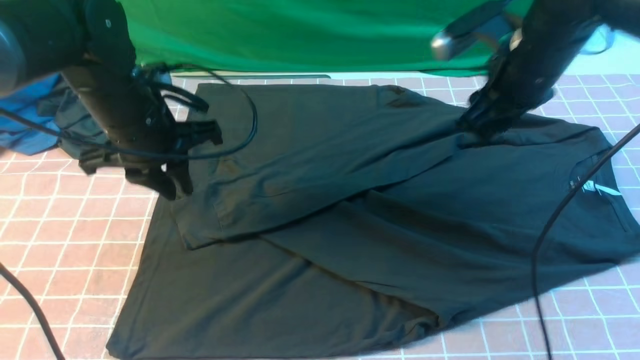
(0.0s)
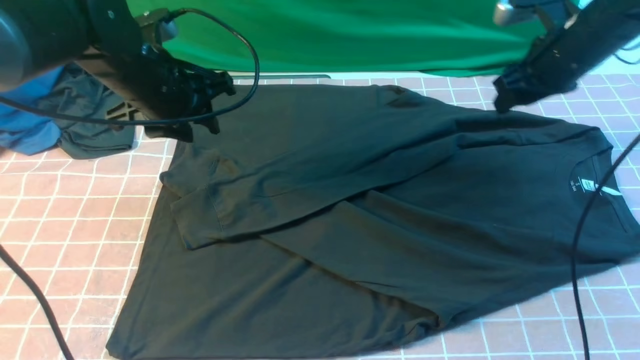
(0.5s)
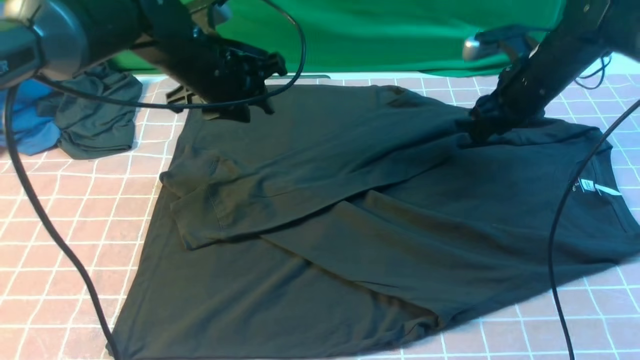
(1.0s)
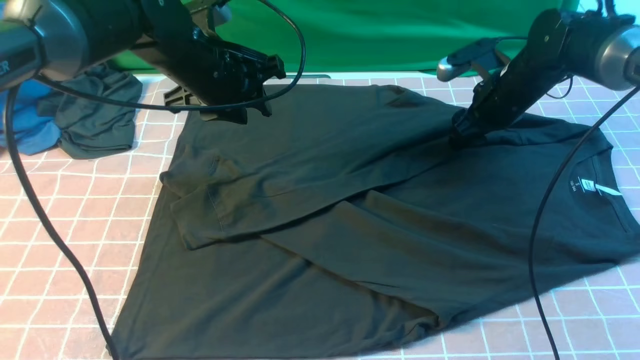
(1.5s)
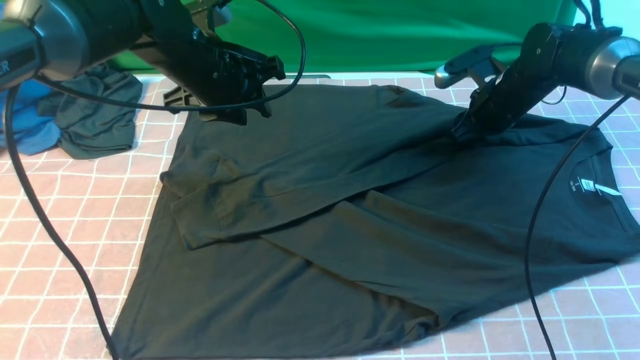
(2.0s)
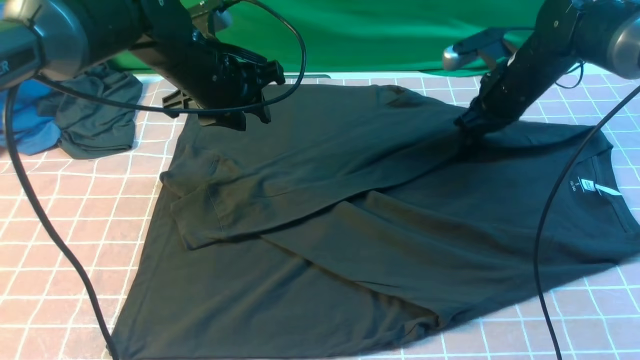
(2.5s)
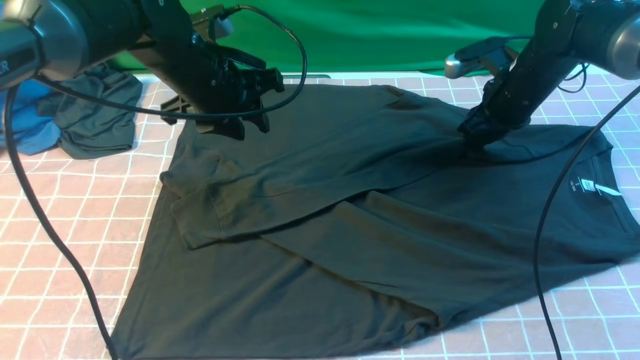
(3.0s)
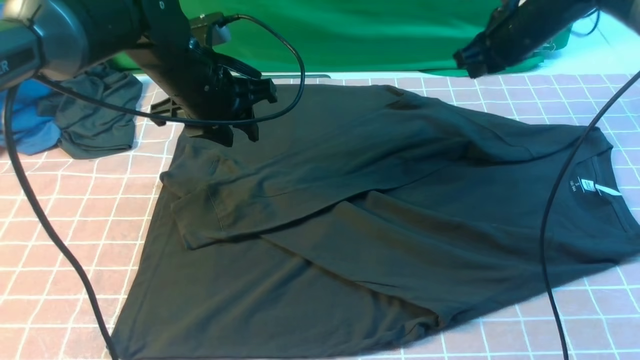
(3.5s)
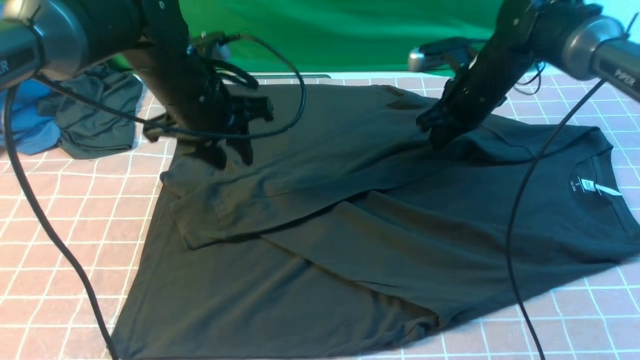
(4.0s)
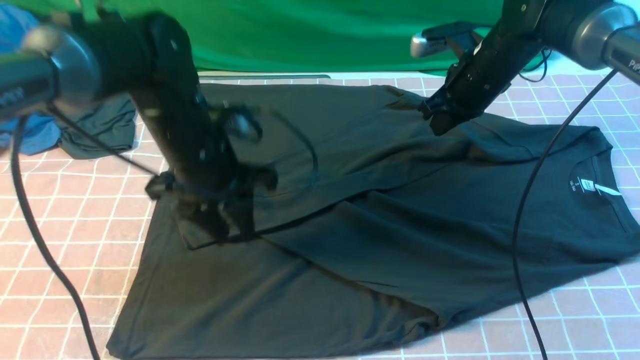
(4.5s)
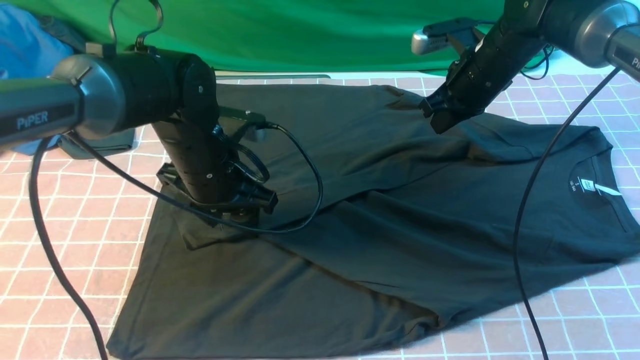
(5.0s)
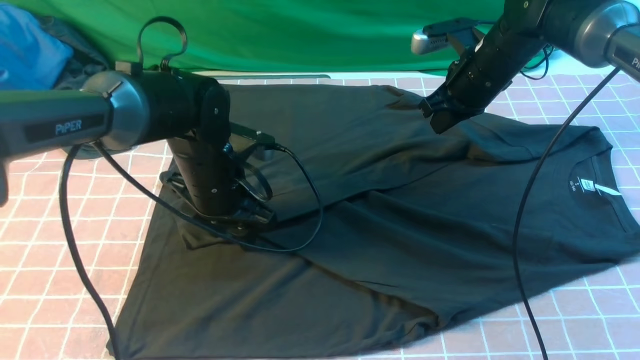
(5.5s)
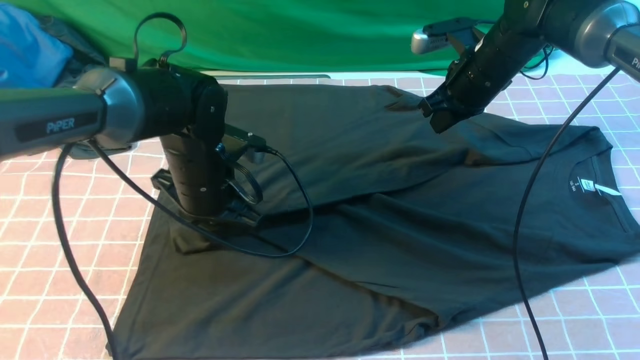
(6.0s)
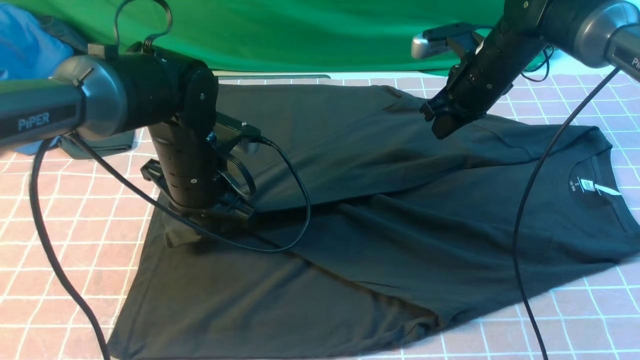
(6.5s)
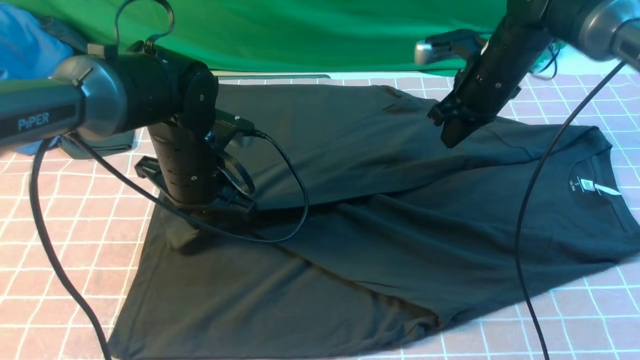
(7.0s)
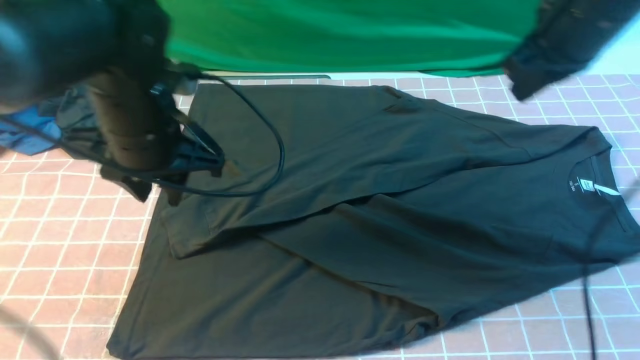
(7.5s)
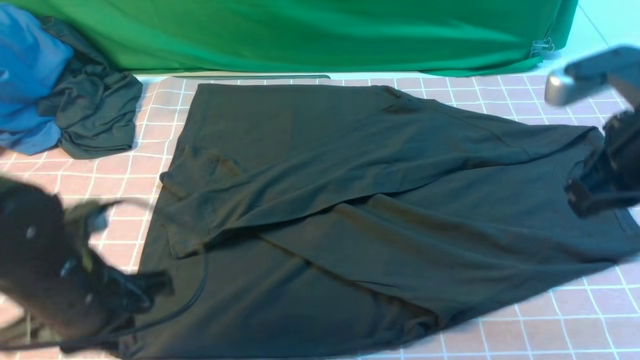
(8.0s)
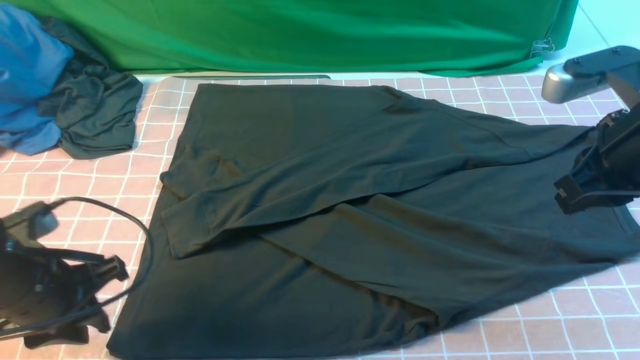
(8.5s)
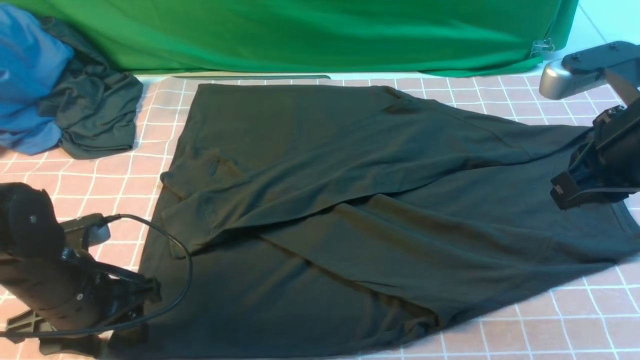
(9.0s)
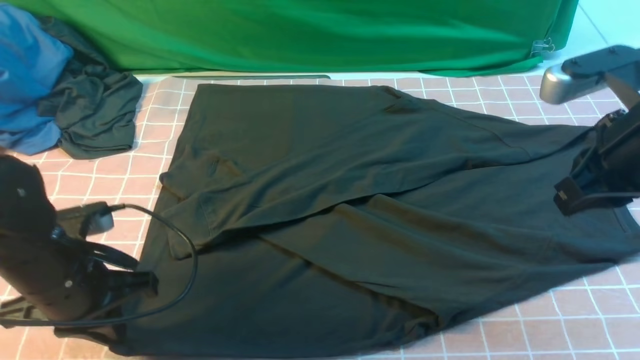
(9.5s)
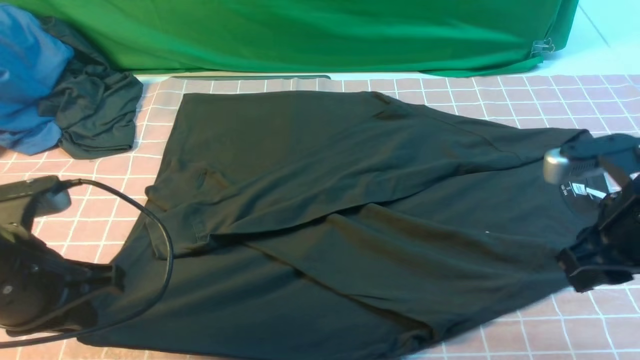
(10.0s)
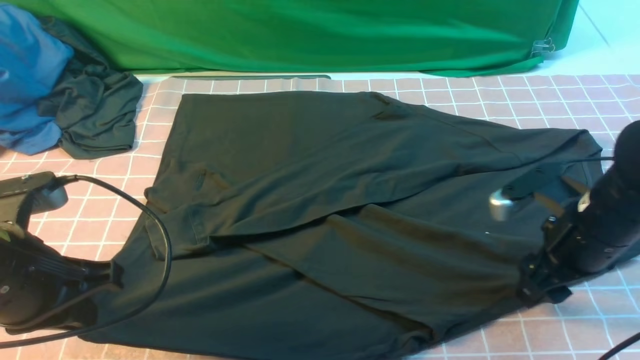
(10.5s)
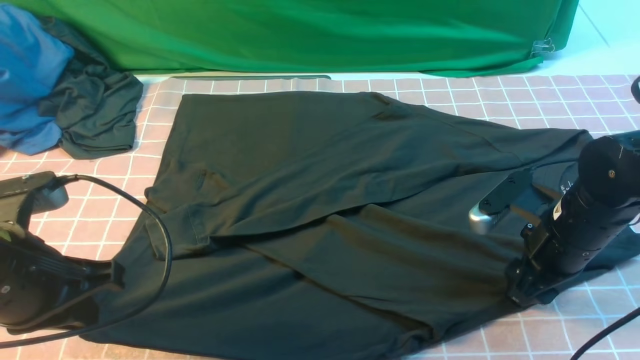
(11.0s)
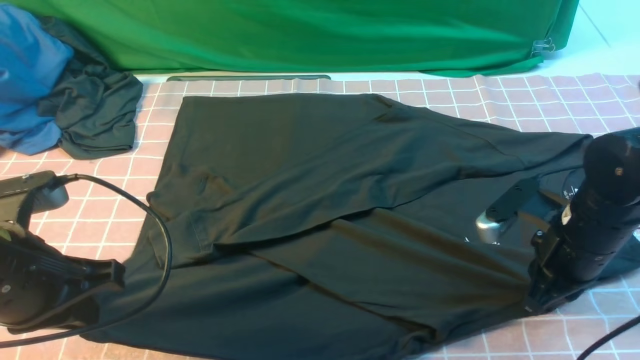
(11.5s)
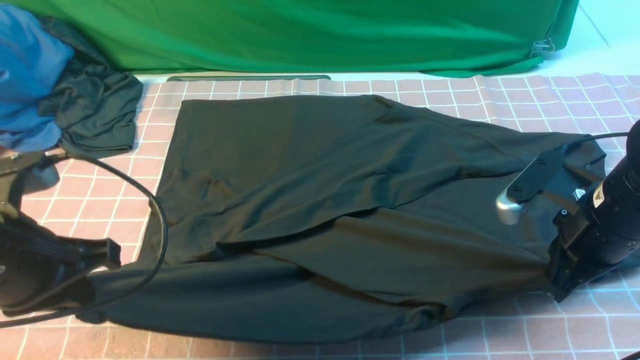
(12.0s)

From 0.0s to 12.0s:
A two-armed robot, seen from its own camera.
Step, from 0.0s to 11.5s: use both arms simultaneously to clamp the lower edge of the clothing fabric.
From 0.0s to 2.0s: The right gripper is displaced downward and forward by about 15 cm; the left gripper travels forward and to the right by about 5 cm.
From 2.0s to 4.0s: The right gripper reaches some 10 cm upward, then returns, and closes.
From 4.0s to 6.0s: The left gripper travels downward by some 5 cm, and closes.
From 6.0s to 8.0s: The left gripper moves backward and to the left, some 15 cm, while the right gripper moves backward and upward, roughly 25 cm.
From 8.0s to 10.0s: The left gripper reaches about 5 cm downward, then returns, and opens and closes again. The right gripper is displaced downward by approximately 5 cm, and opens up.
From 10.0s to 12.0s: The right gripper closes its fingers.

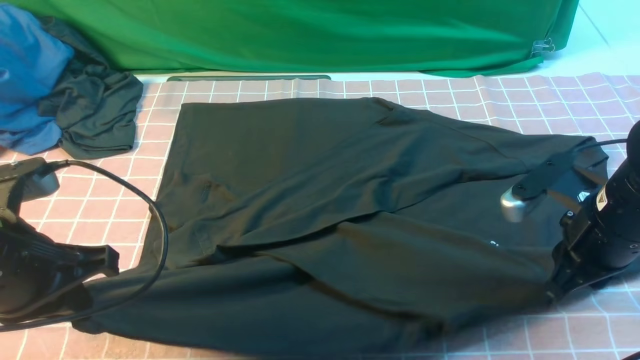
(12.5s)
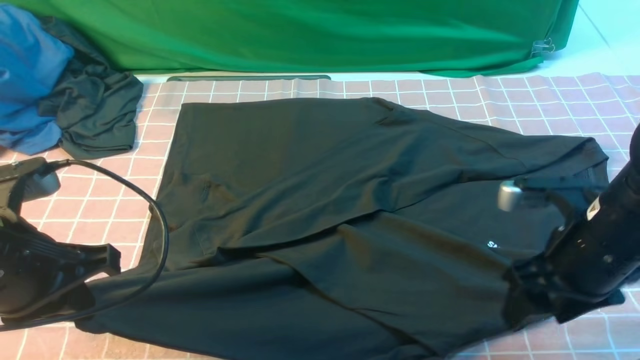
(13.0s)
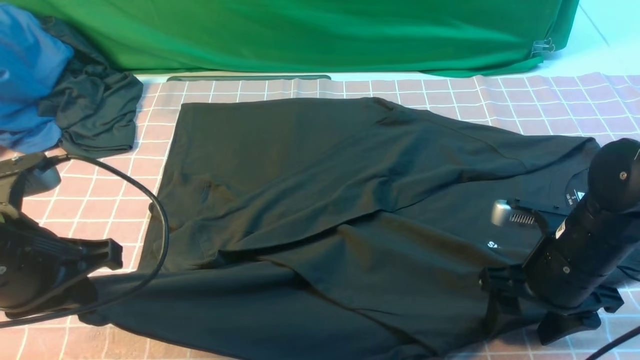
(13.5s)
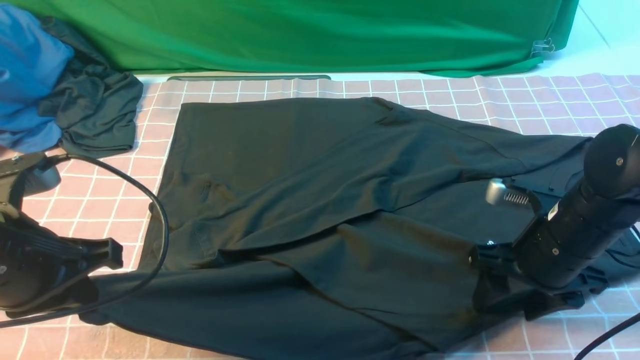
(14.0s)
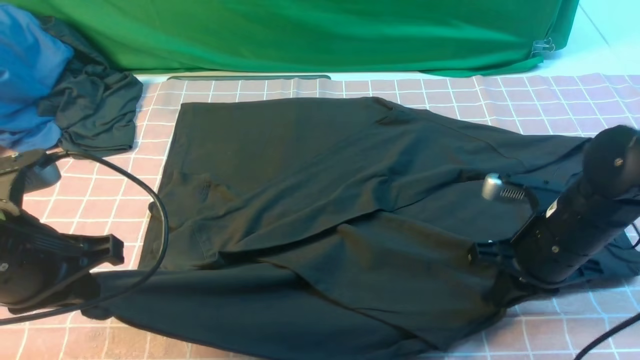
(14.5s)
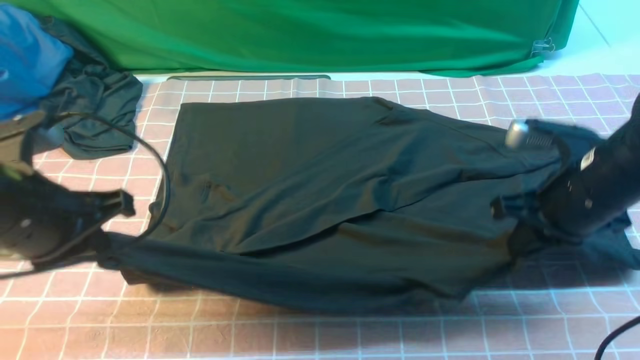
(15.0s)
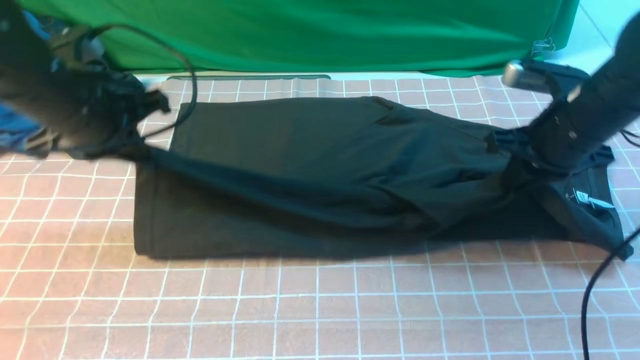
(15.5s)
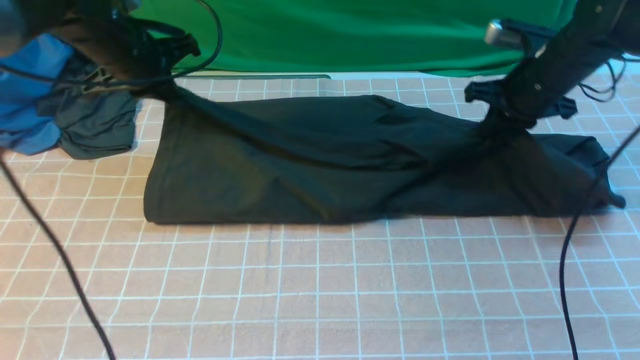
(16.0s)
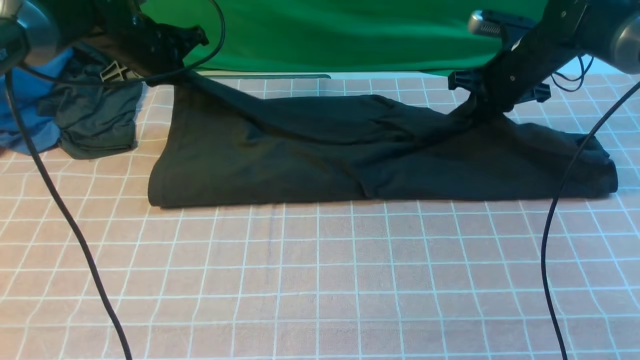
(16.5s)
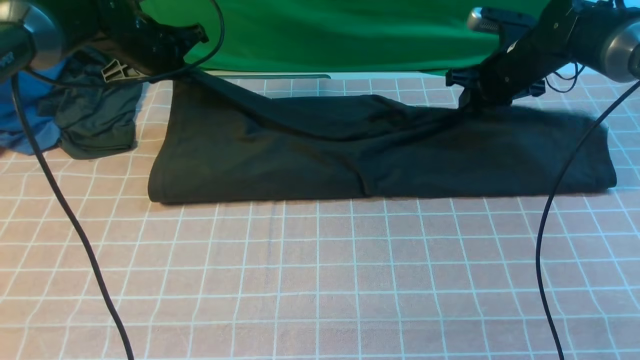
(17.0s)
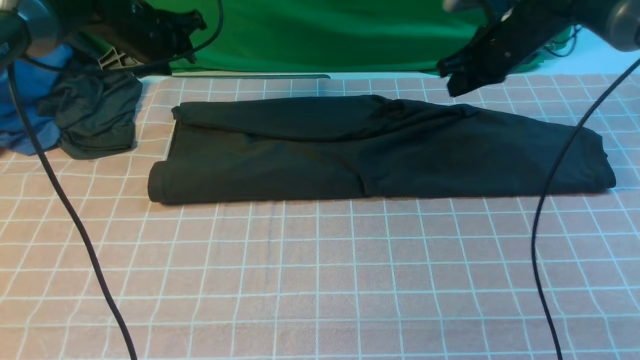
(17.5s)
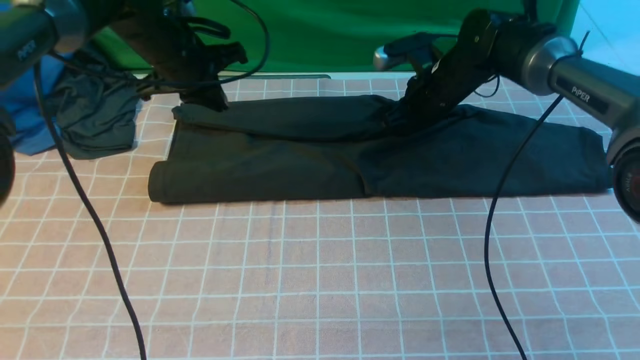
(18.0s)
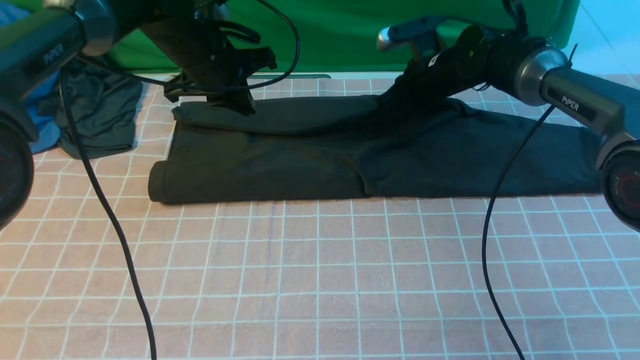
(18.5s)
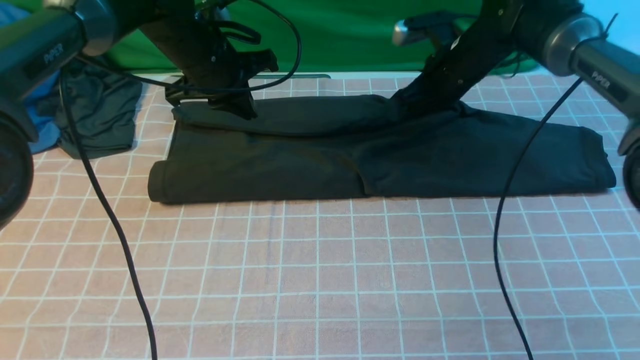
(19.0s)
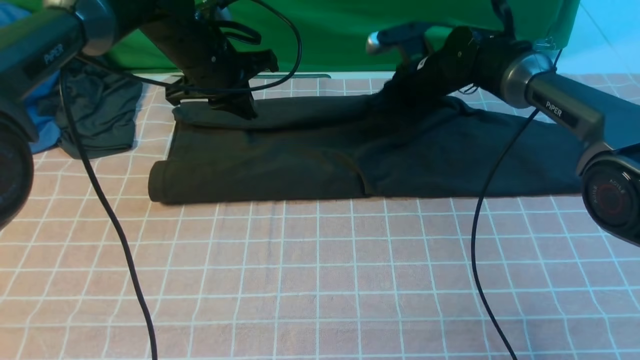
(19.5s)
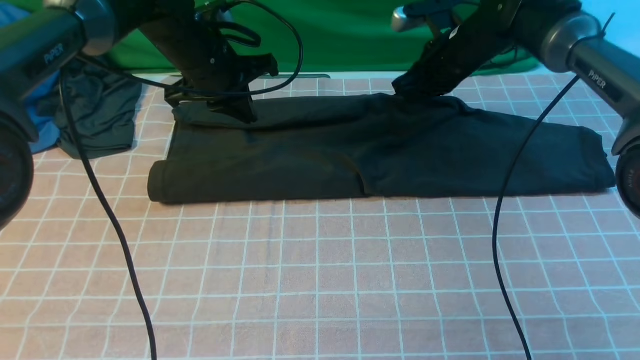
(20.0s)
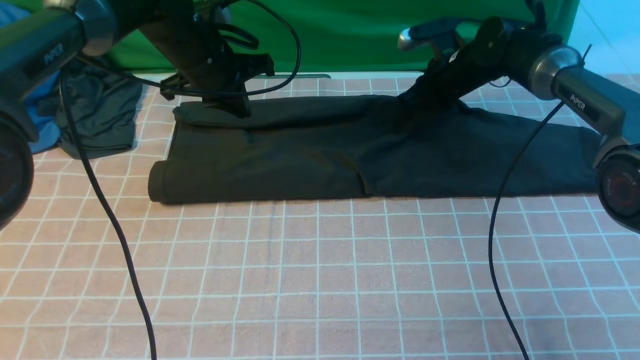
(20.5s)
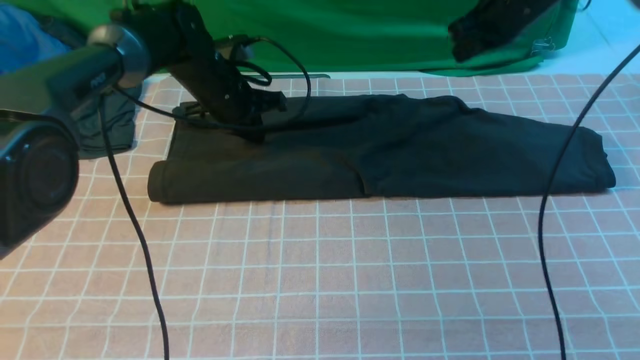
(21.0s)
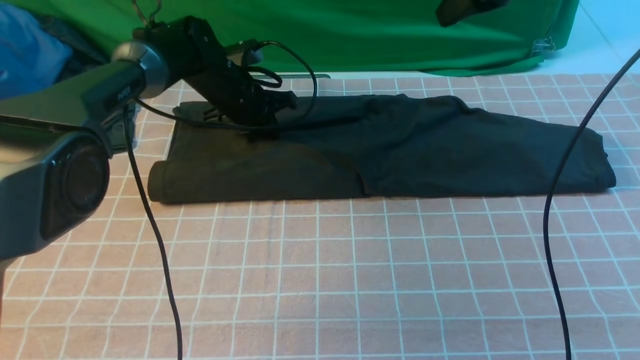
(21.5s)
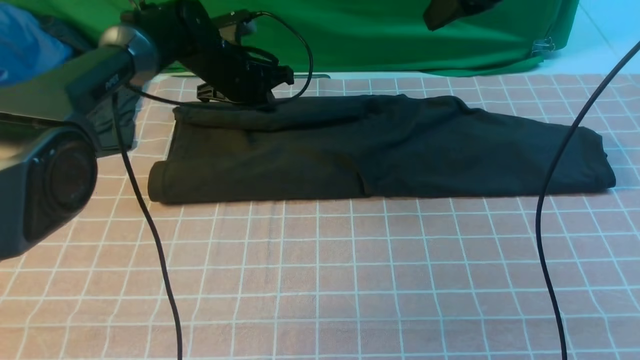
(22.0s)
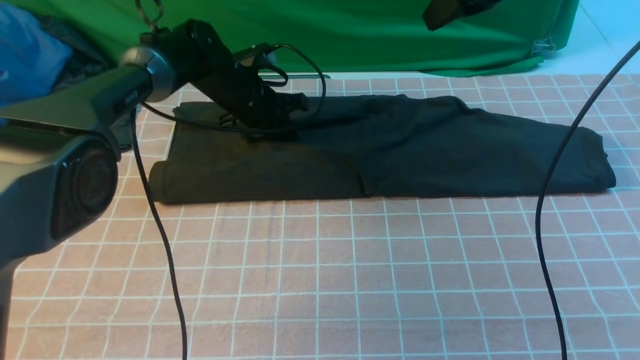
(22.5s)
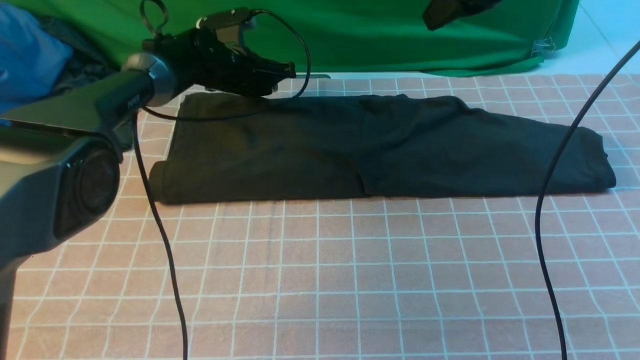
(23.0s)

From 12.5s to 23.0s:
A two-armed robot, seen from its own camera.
From 12.5s to 14.5s: The right gripper opens, then closes again.
From 14.5s to 16.5s: Both grippers travel together forward, some 25 cm.
From 16.5s to 19.0s: The left gripper goes some 10 cm to the right, and opens and closes again. The right gripper heads to the left, covering approximately 10 cm.
From 19.0s to 21.0s: The right gripper is displaced upward and to the right by some 15 cm. The left gripper shifts about 5 cm downward.
From 21.0s to 23.0s: The right gripper travels upward by roughly 5 cm.
